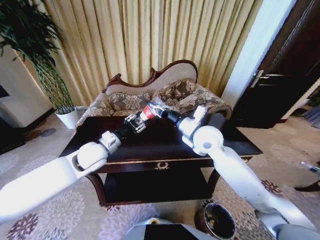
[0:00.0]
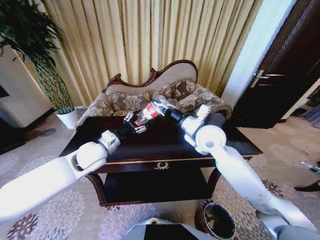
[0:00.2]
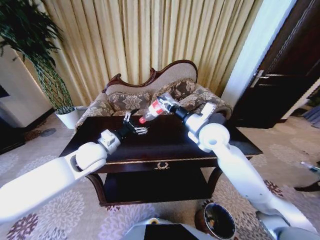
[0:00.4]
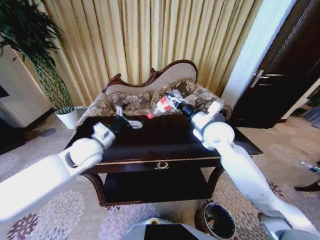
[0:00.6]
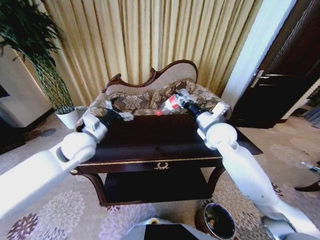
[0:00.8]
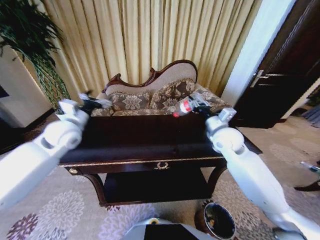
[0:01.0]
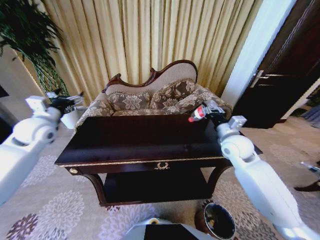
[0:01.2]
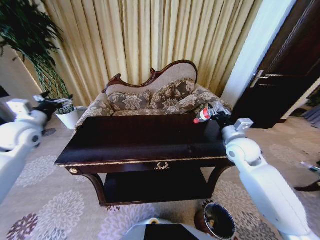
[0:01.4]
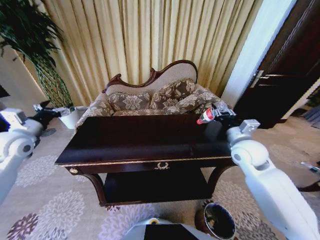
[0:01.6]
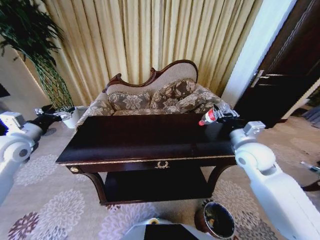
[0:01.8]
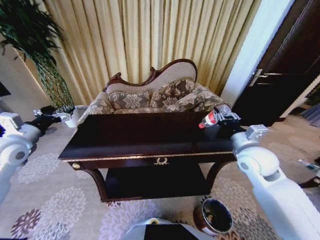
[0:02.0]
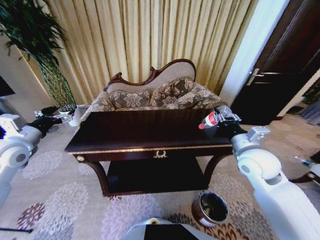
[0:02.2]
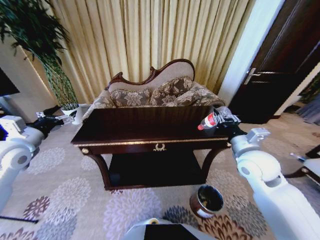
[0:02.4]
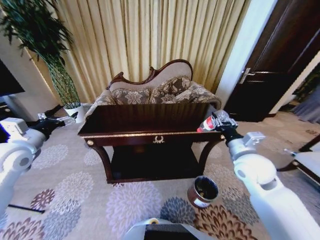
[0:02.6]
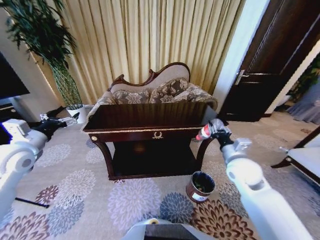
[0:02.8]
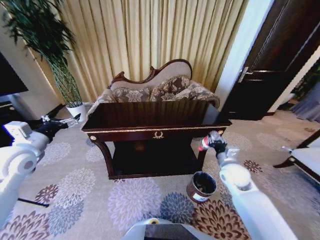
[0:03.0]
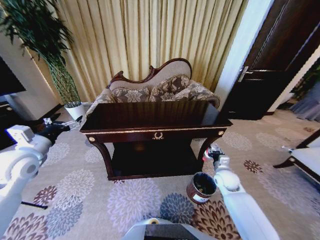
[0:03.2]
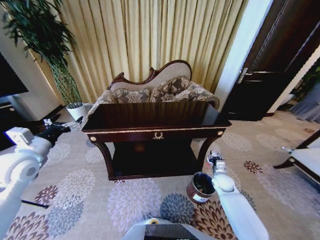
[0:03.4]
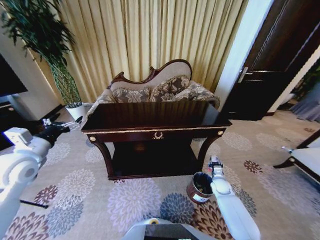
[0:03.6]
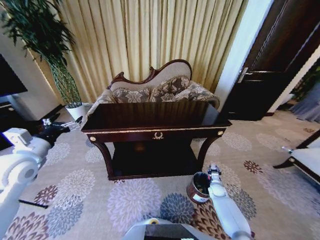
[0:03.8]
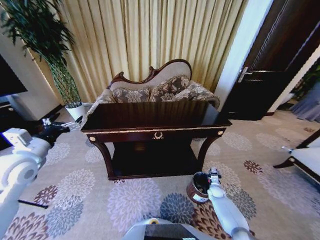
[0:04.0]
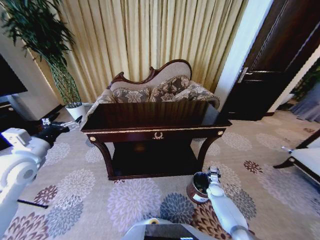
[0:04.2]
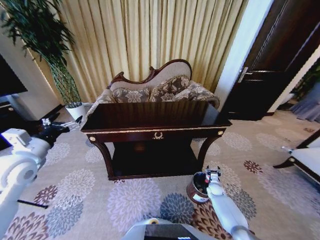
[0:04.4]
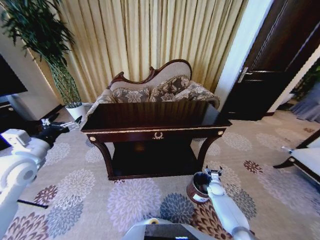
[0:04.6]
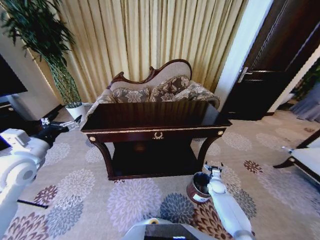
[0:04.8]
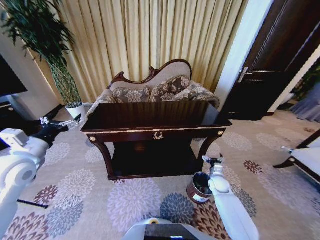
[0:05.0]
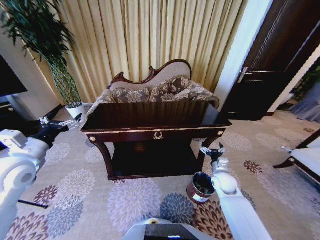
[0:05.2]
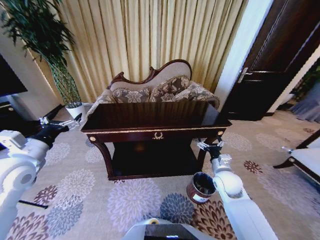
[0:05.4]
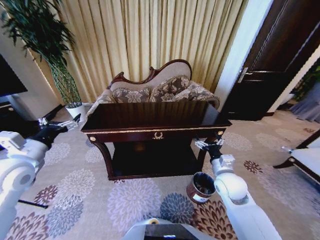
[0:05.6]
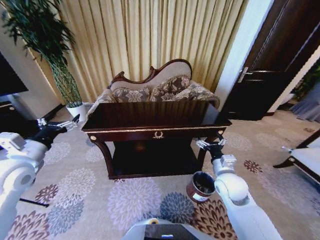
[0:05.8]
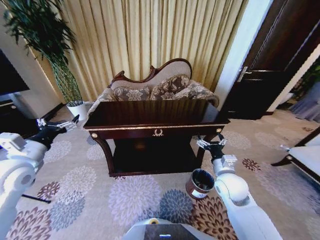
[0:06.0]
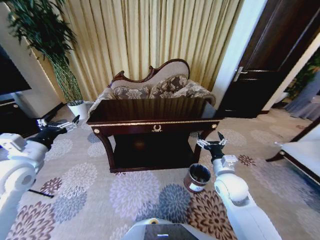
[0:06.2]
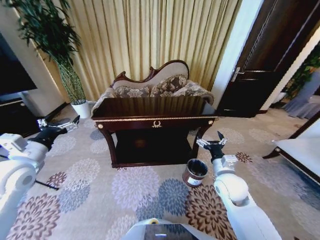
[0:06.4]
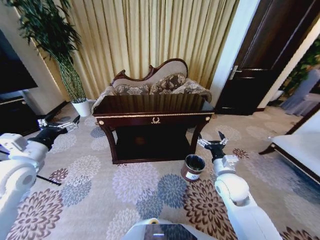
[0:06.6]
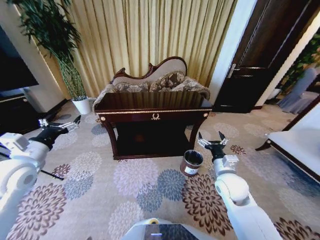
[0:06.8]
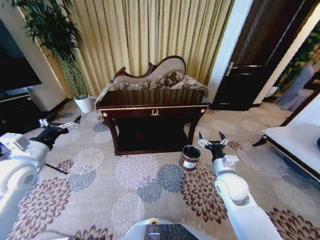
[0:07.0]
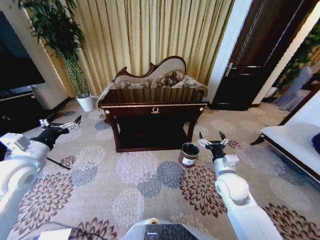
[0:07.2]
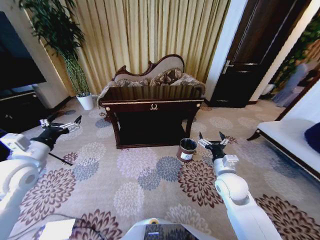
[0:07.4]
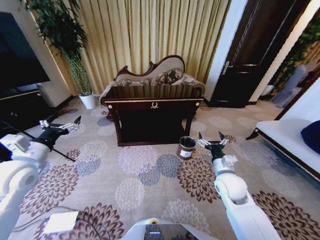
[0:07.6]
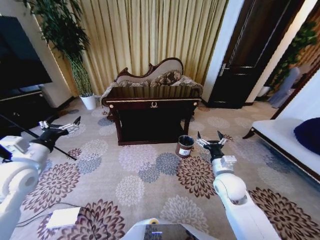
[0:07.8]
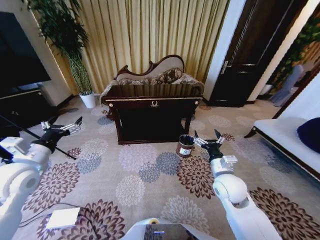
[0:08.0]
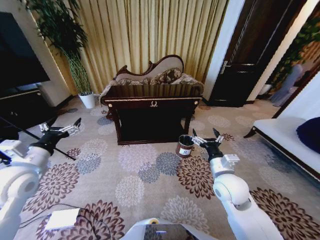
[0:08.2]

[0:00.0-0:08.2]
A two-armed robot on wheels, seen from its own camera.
Task of the whole recording: Move to the front of the table and place the trash on the table into the trash bin.
0:00.0 to 0:01.6: The right gripper travels to the right by approximately 15 cm. The left gripper heads to the left, covering about 25 cm, and opens up.
0:01.6 to 0:03.2: The right gripper travels downward by roughly 20 cm. The left gripper shifts some 5 cm backward.
0:03.2 to 0:05.0: The right gripper is displaced downward by roughly 10 cm, and opens.
0:05.0 to 0:06.6: The right gripper travels upward and to the left by about 25 cm.
